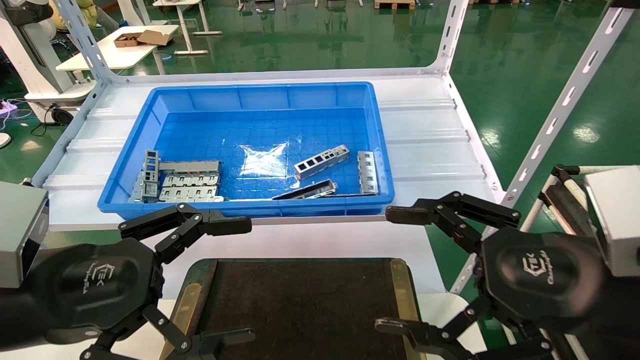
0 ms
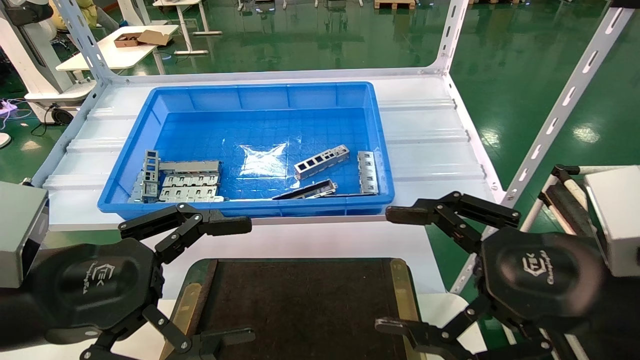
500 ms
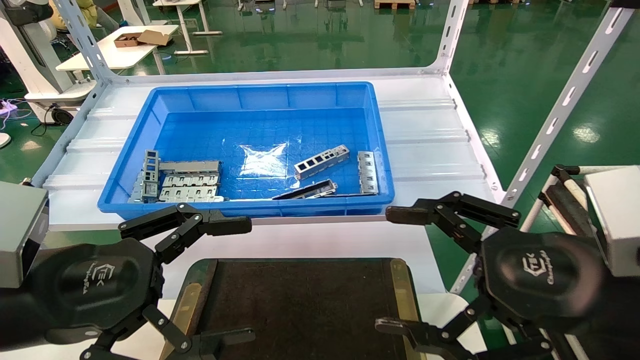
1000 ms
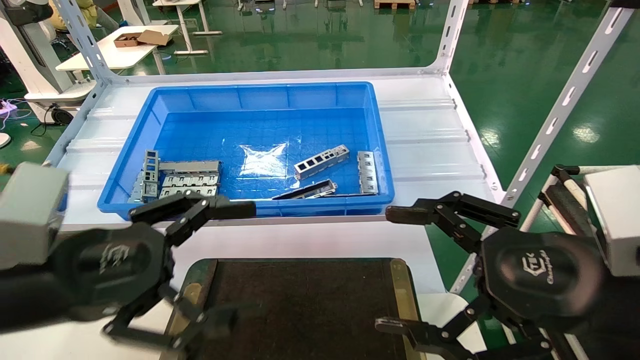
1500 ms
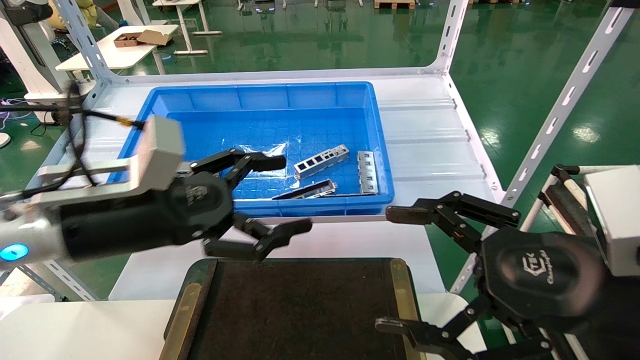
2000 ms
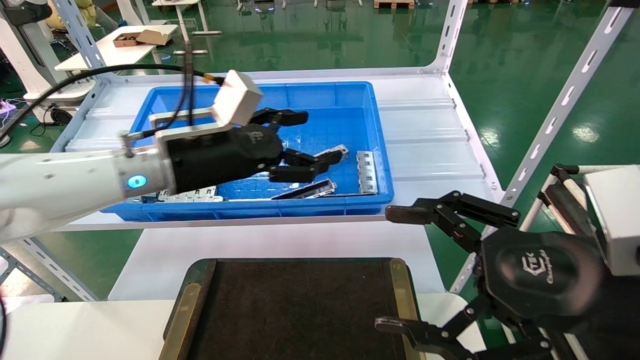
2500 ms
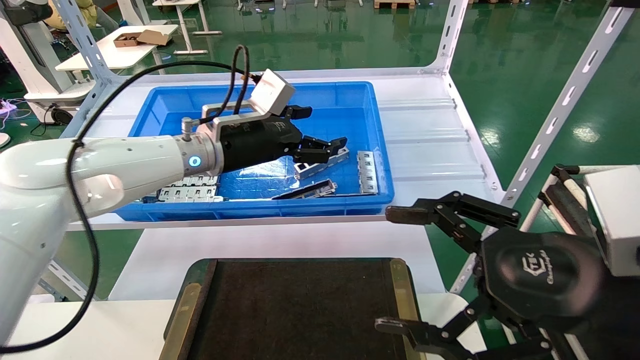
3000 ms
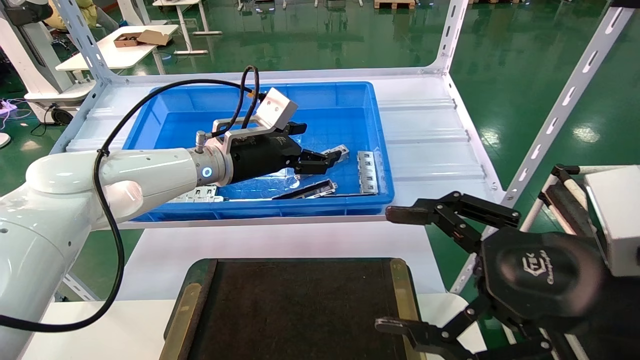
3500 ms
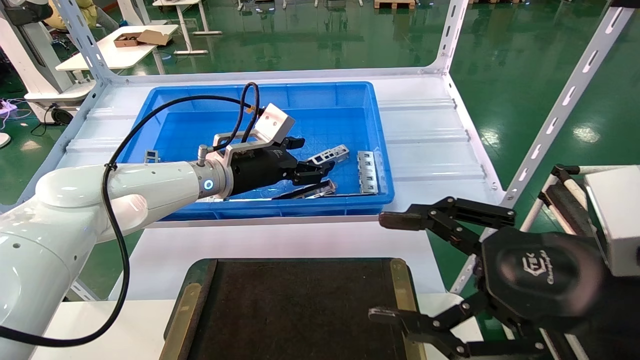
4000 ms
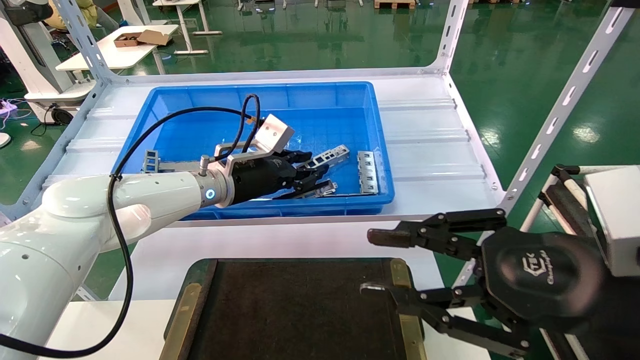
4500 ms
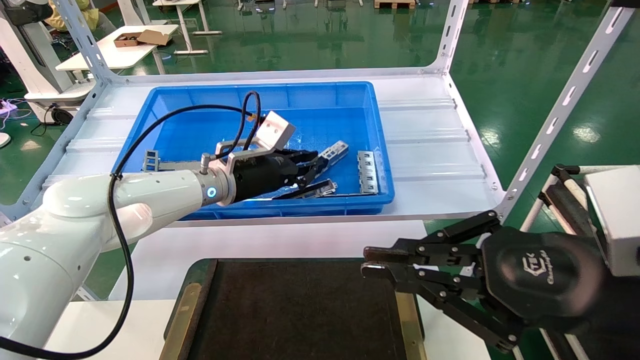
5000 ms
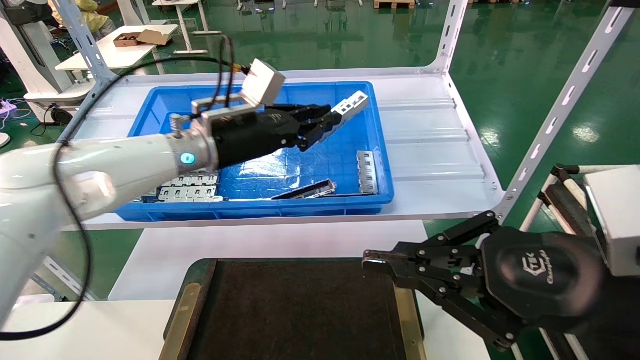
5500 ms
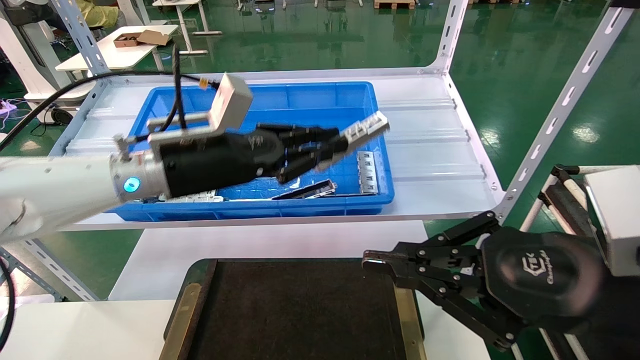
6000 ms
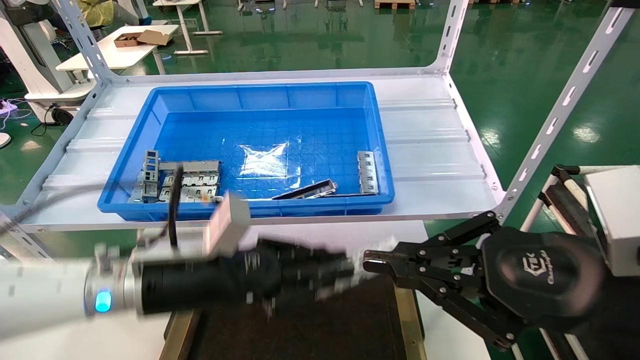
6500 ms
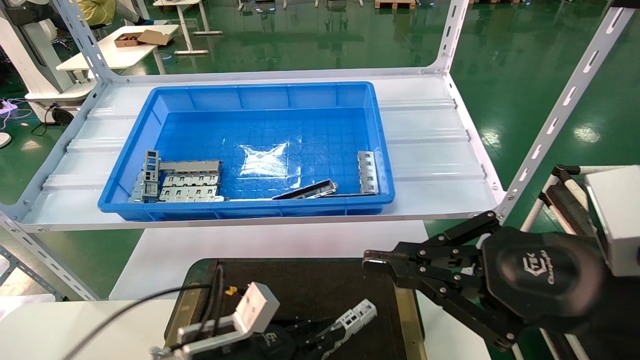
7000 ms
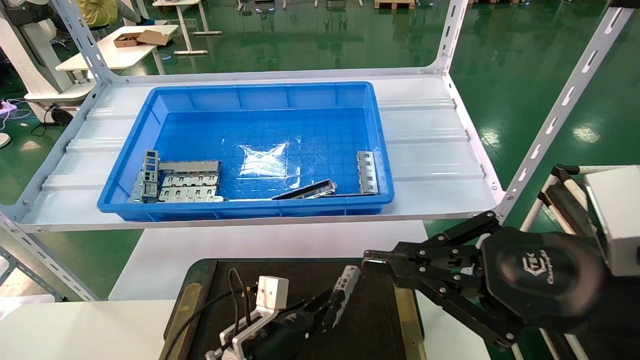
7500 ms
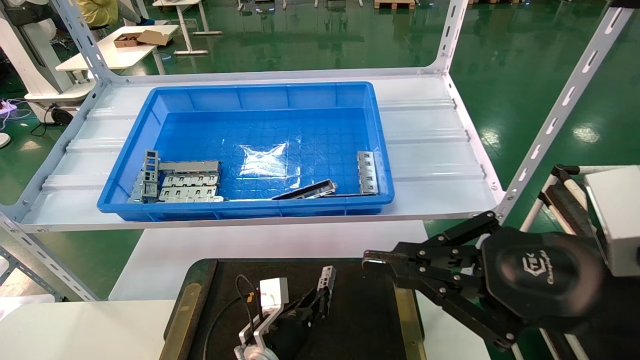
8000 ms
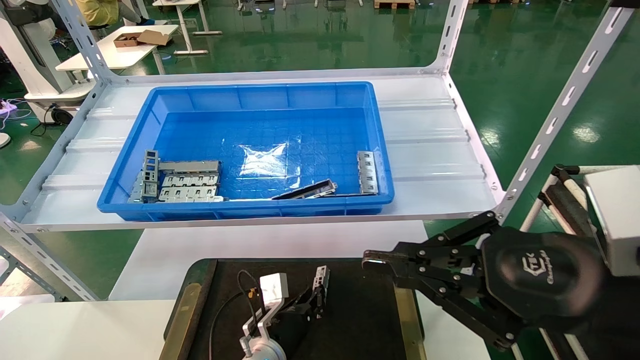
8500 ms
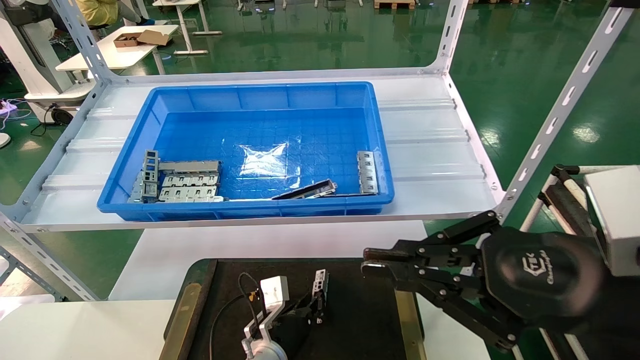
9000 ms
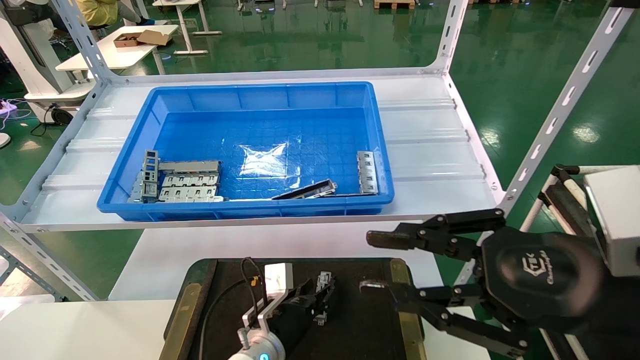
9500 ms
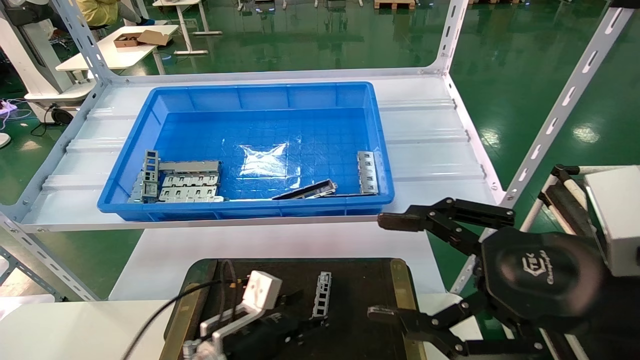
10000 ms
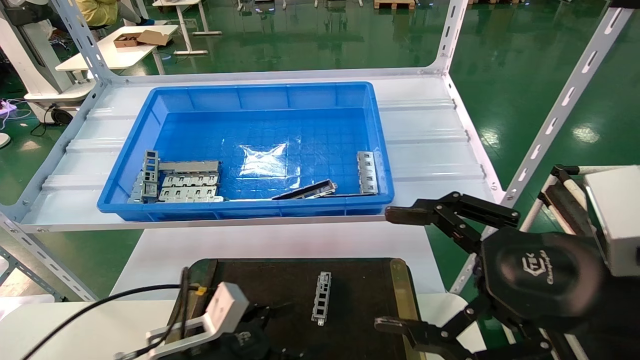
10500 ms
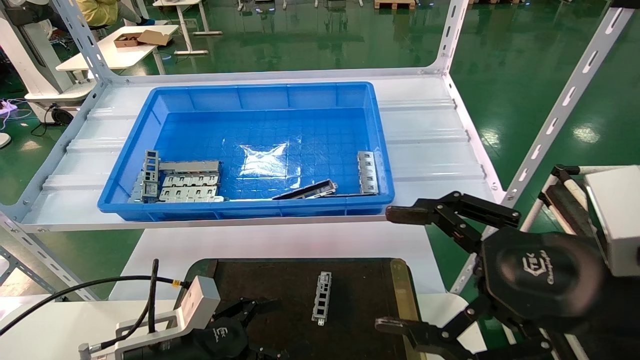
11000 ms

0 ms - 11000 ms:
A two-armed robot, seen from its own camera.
Task of the whole recording: Grasp the part with one hand and place it on the black container.
Step, 2000 ms - 4500 ms: Pick up the front USB bracket from the feeding area.
Step, 5000 ms - 9000 ms: Place the front USB bracket into the box.
0 ms - 2000 ms: The left gripper is displaced forward by approximately 10 cm.
2000 ms - 3500 ms: The left gripper is displaced forward and to the right by roughly 20 cm.
3500 ms - 5500 ms: The right gripper closes up. Meanwhile the left gripper closes its fingers.
5500 ms - 7500 ms: The left gripper moves downward, about 30 cm.
7500 ms - 9000 ms: The left gripper travels forward by roughly 5 cm.
9000 ms - 11000 ms: The left gripper travels to the left, backward and upward by roughly 20 cm, and opens, while the right gripper opens.
